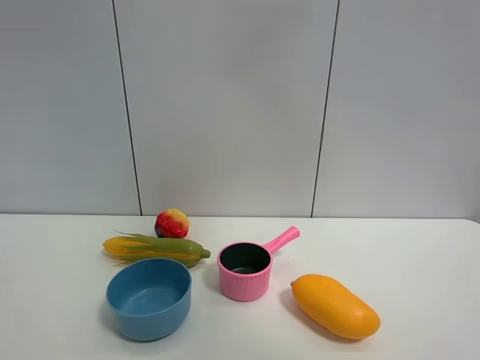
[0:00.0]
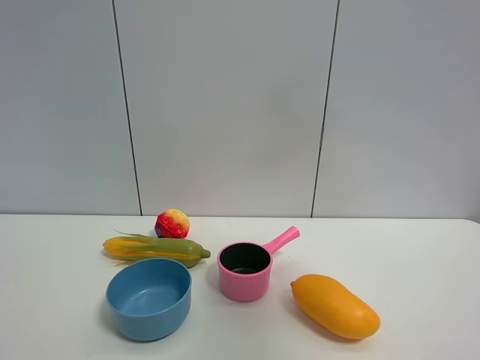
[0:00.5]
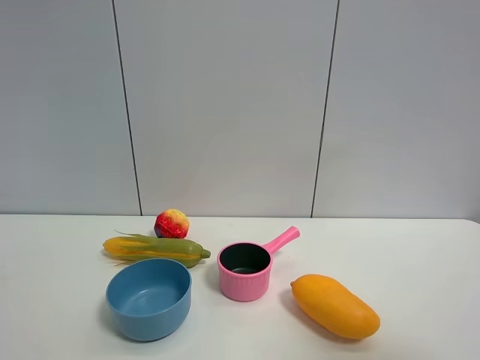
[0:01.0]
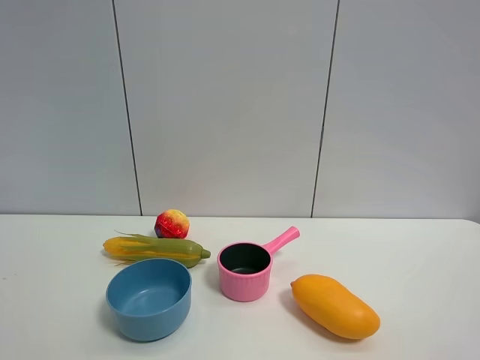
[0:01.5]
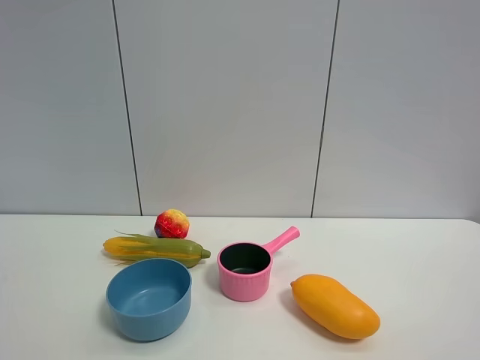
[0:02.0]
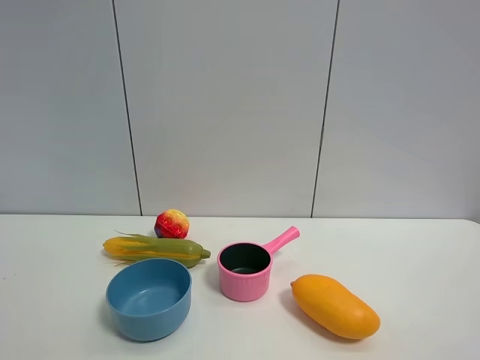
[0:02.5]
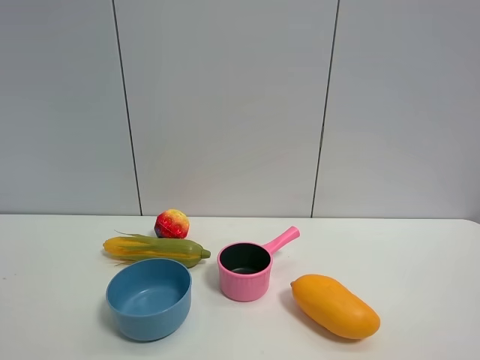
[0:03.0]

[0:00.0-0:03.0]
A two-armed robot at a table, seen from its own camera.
Task of the whole recording: the gripper move the object.
0:00.0 to 0:01.5: The right gripper shifts approximately 40 cm backward, downward and to the right.

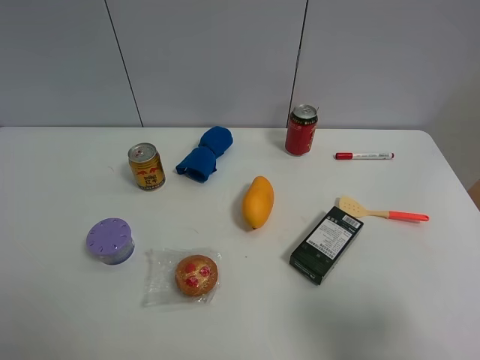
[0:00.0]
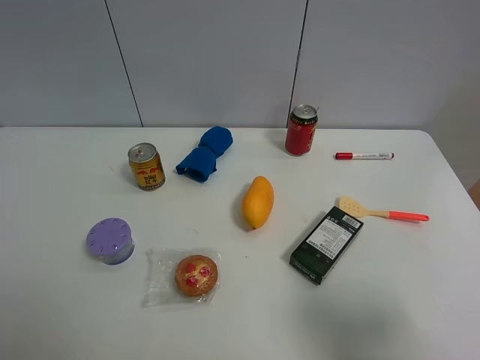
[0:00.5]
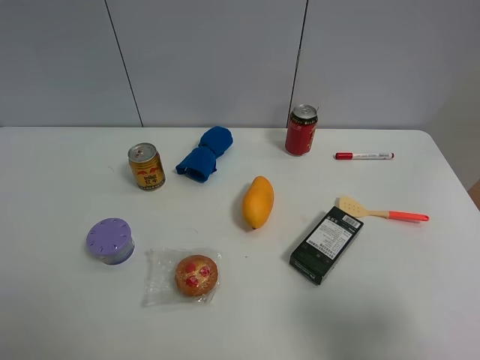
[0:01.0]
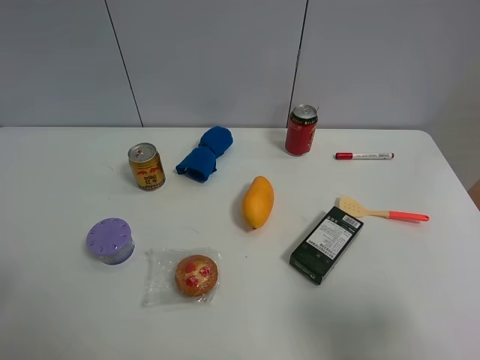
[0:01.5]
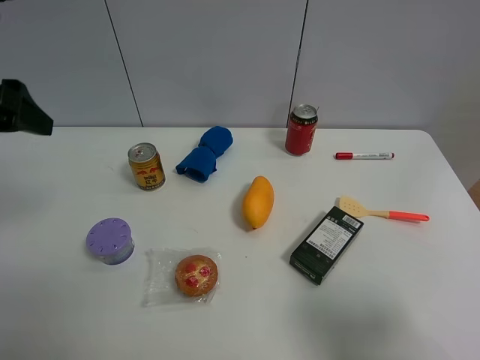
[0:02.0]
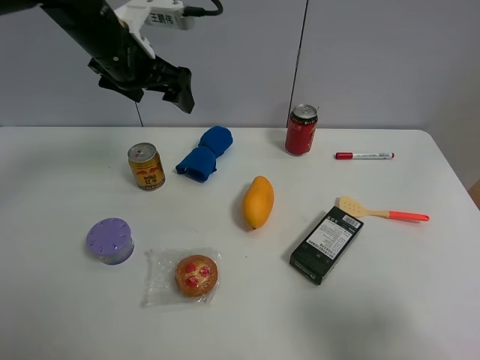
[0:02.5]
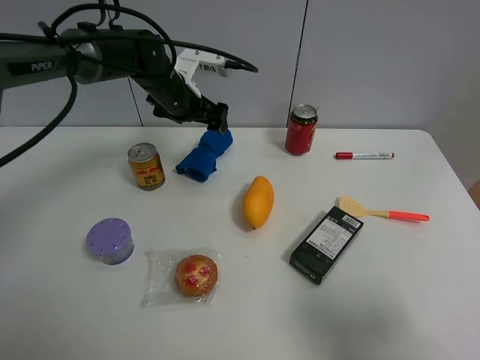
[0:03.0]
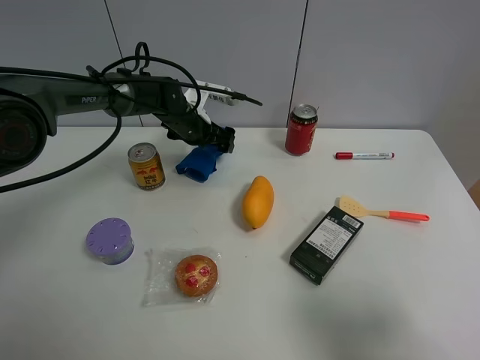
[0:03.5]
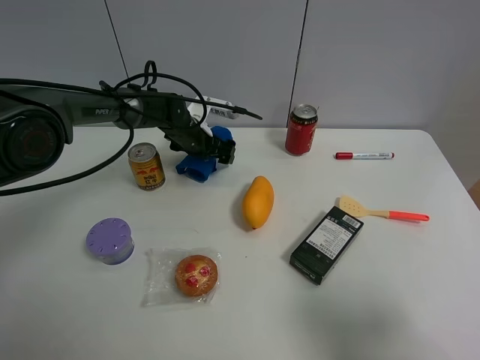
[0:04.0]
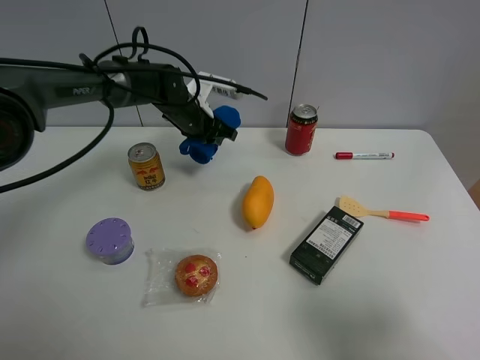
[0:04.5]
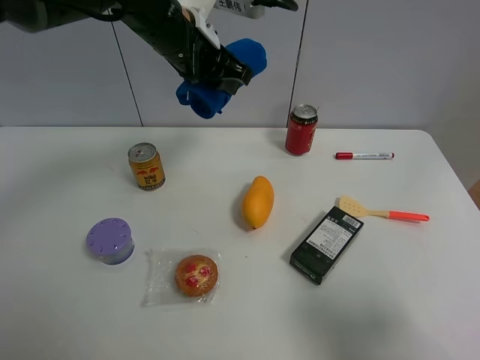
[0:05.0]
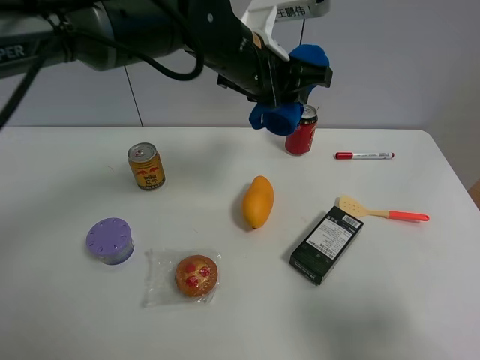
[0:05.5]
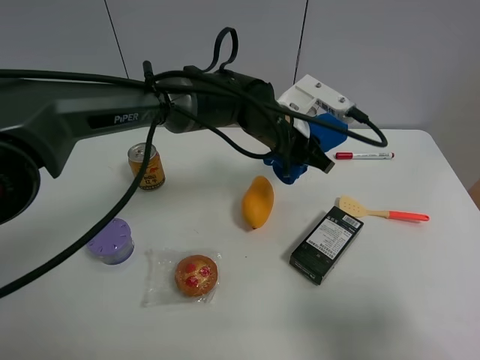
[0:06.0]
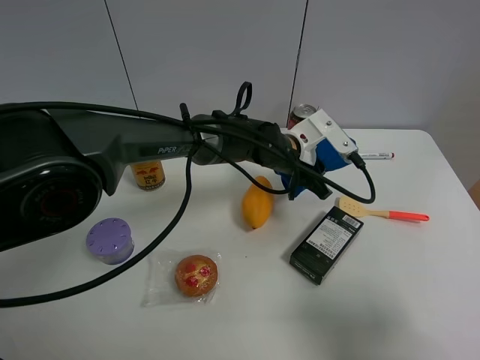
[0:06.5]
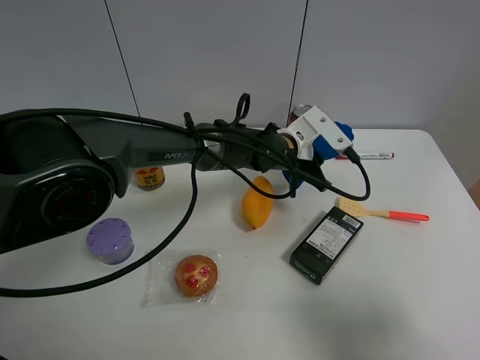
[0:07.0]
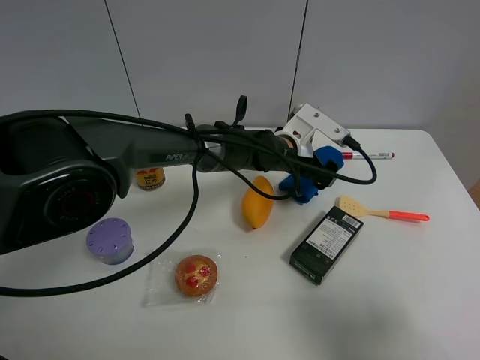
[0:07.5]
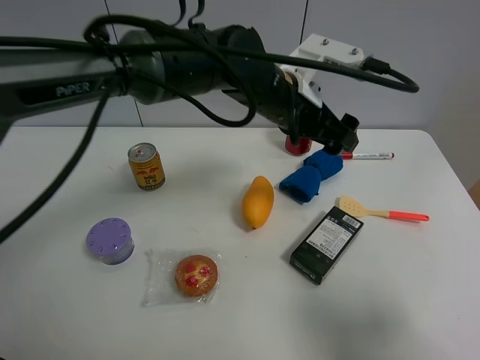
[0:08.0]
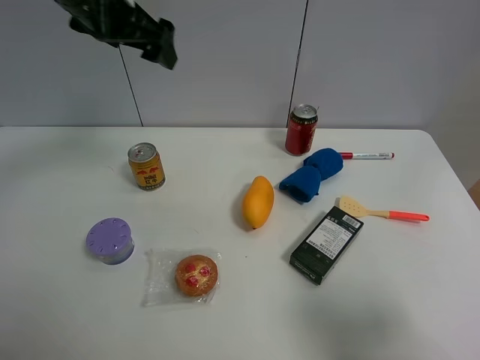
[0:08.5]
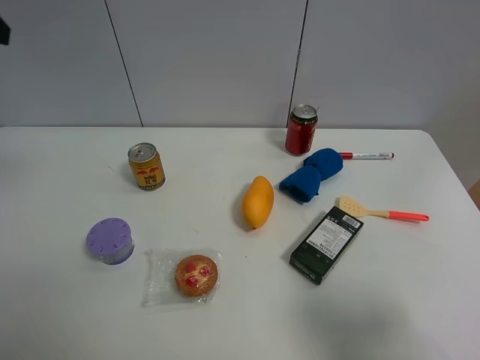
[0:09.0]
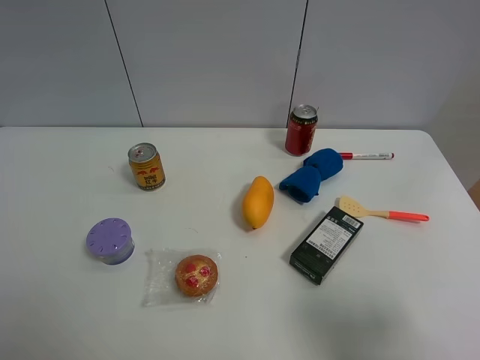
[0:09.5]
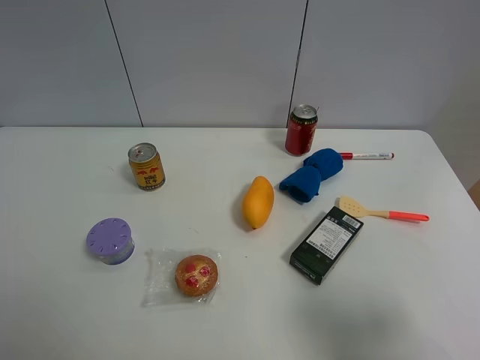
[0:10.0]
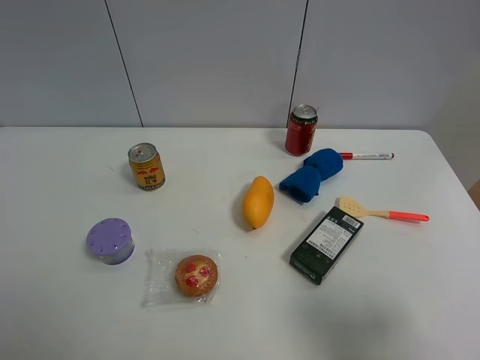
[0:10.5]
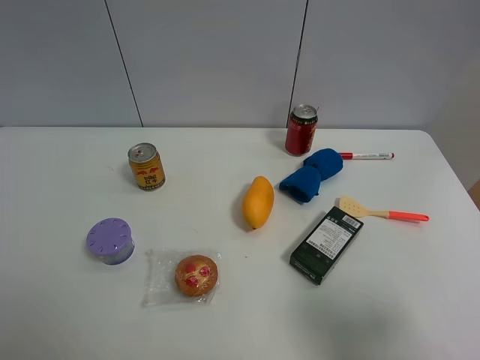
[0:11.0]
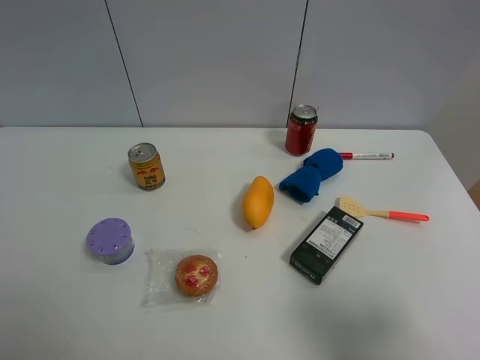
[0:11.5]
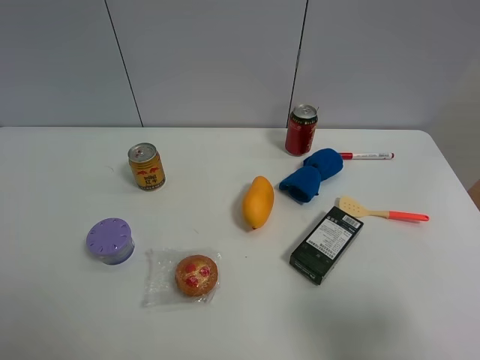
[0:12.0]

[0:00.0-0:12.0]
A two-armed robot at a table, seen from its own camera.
Task of the whole recording: the gripper move the object.
Step, 0:00.0 to 0:04.0: Grasp the blue towel with the left gripper.
Step, 0:04.5 to 0:07.5: Place the blue towel on the table with the left gripper.
0:00.0 to 0:02.0: The left gripper goes some 25 cm forward.
0:02.0 to 0:04.0: The left gripper travels downward, forward and to the right by some 40 cm.
0:04.0 to 0:06.0: The left gripper is displaced to the right, backward and upward by approximately 20 cm, and closes its fingers.
0:06.0 to 0:08.0: The left gripper heads upward, covering roughly 10 cm, and opens its fingers.
0:08.0 to 0:10.0: The left gripper heads to the left and backward, covering roughly 50 cm.

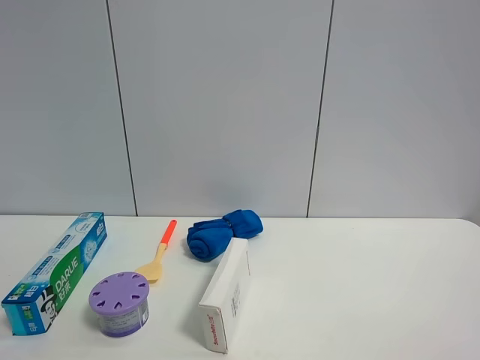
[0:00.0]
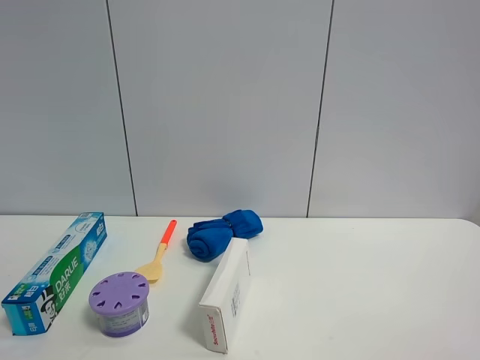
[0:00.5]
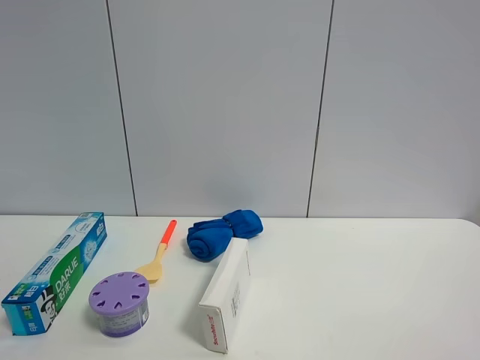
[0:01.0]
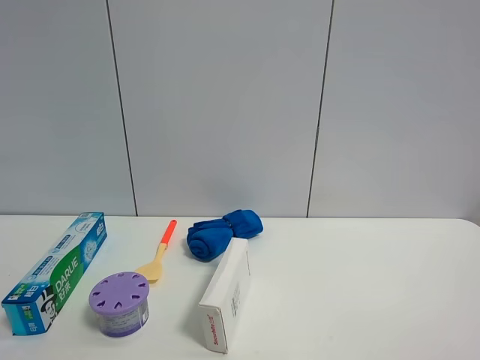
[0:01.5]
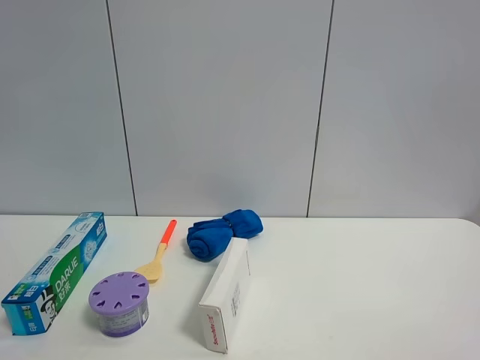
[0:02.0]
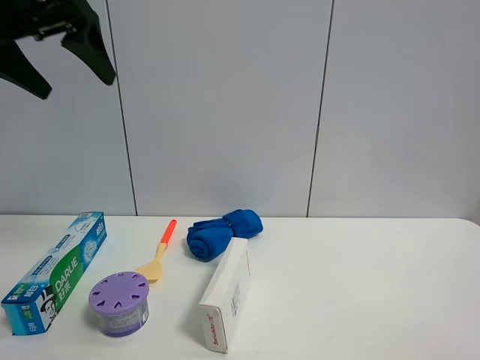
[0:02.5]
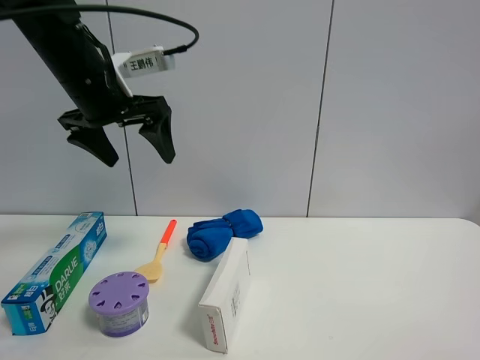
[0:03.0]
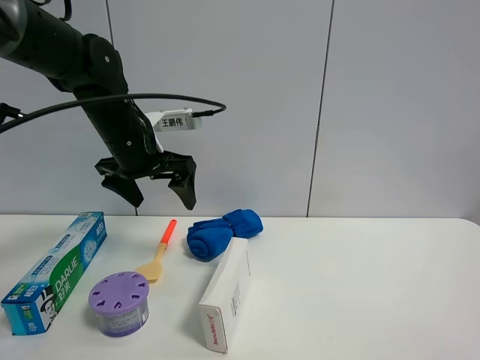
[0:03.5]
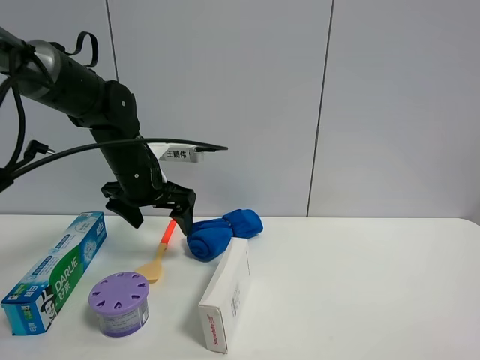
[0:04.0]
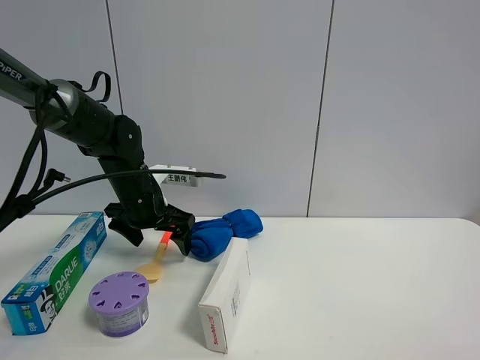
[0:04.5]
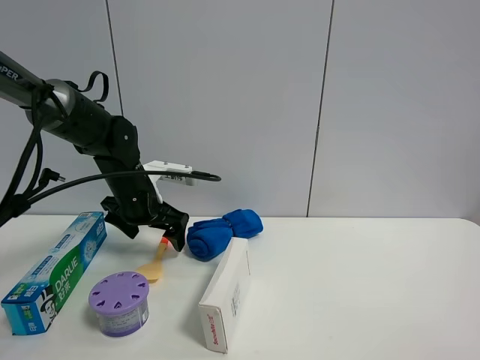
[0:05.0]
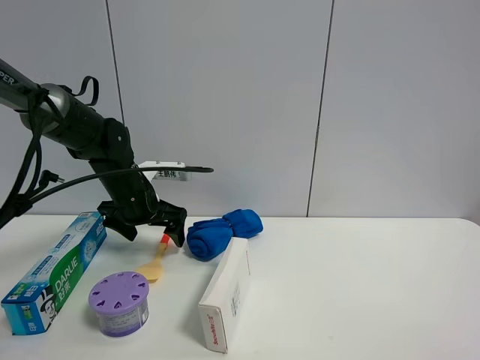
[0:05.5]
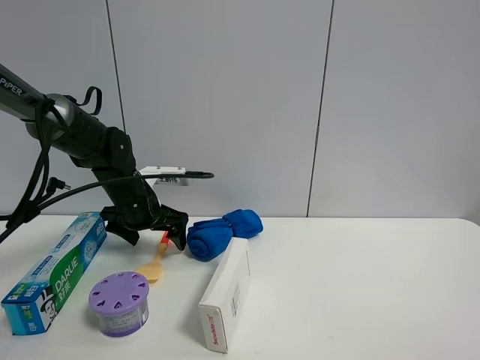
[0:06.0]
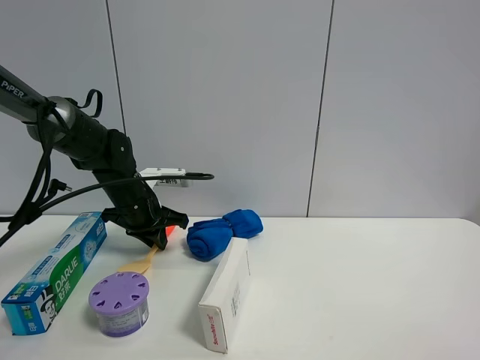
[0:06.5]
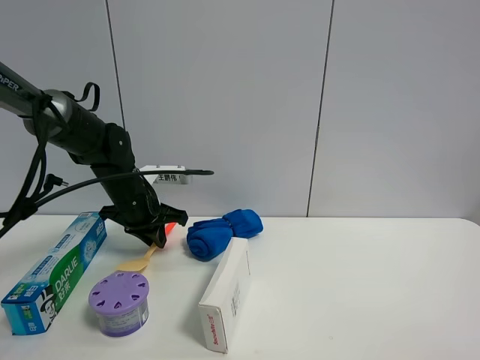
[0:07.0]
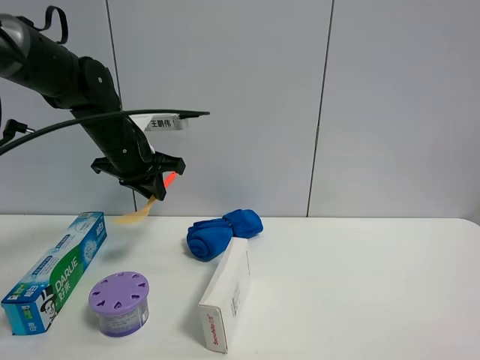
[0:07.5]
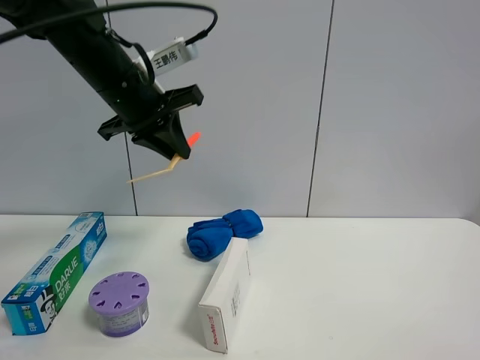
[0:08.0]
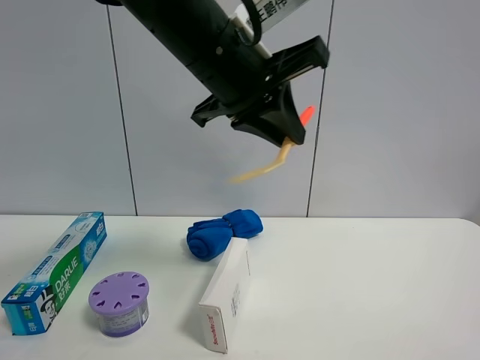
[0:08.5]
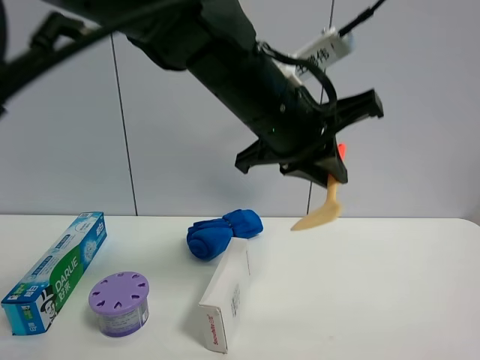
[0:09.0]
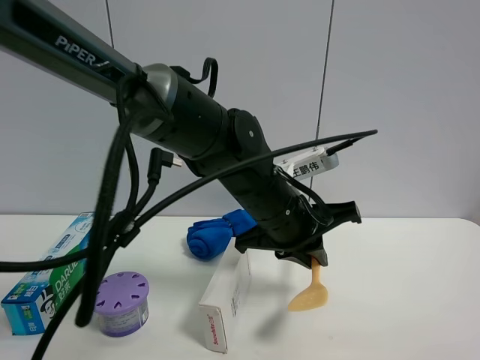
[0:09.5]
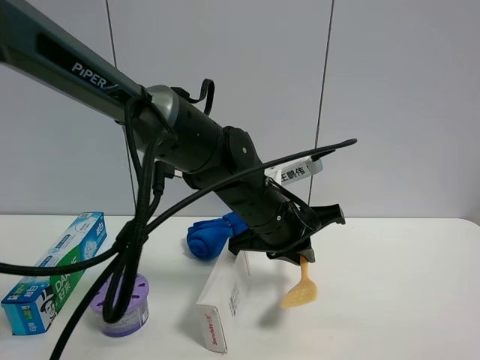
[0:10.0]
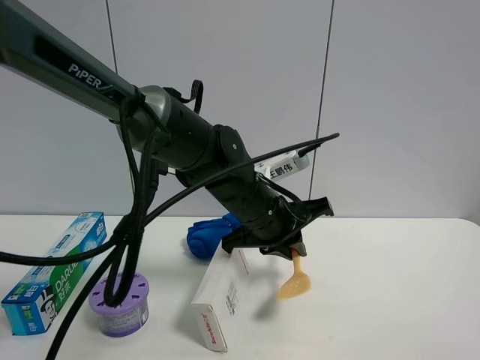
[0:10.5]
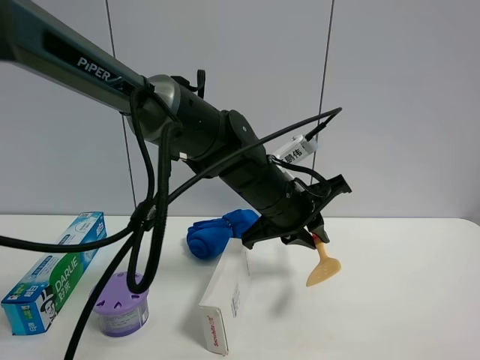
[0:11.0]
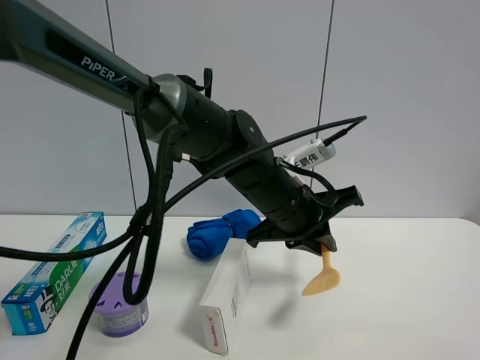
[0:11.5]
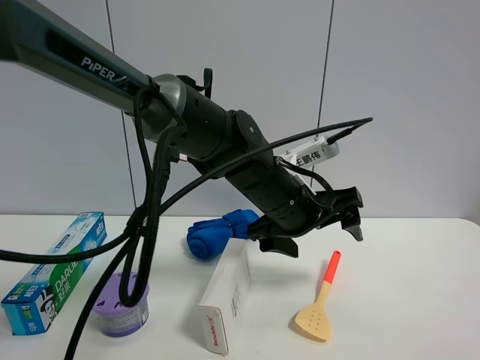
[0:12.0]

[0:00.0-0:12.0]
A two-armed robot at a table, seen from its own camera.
Task of the whole recording: the gripper move the object.
Step, 0:00.0 to 0:06.5: Grasp the cooking shovel with the left gripper.
Step, 0:07.0 to 0:11.5: Place the cooking shovel on the table with the left gripper.
0:02.0 to 0:04.0: The left gripper travels downward, forward and to the right by some 40 cm.
0:04.0 to 0:06.0: The left gripper is displaced downward by about 5 cm.
0:06.0 to 0:08.0: The left gripper heads upward, covering roughly 20 cm, and closes up.
0:08.0 to 0:10.0: The left gripper moves to the right and downward, some 25 cm.
0:10.0 to 0:12.0: The left gripper opens up.
